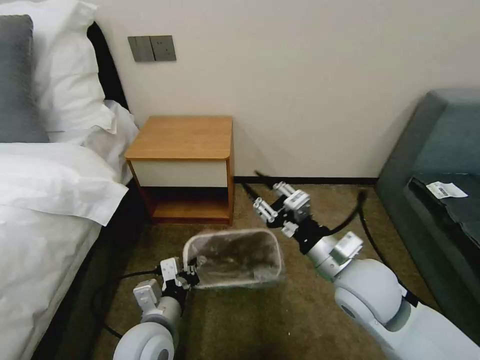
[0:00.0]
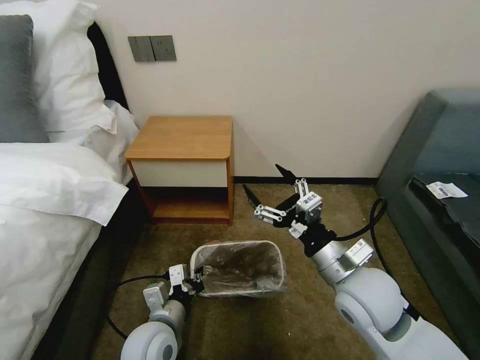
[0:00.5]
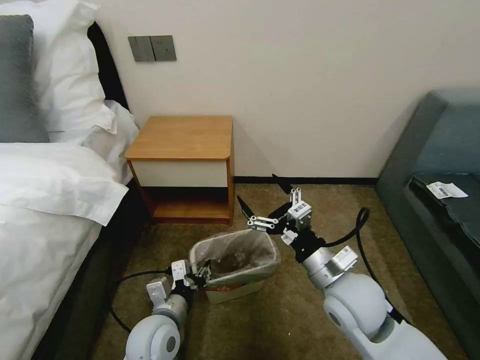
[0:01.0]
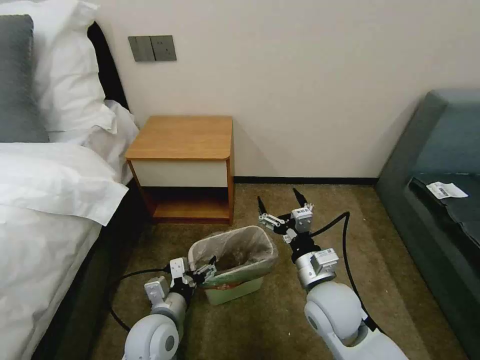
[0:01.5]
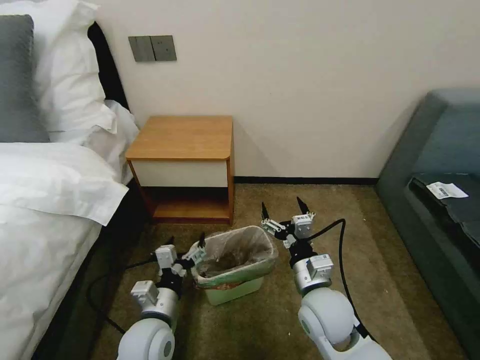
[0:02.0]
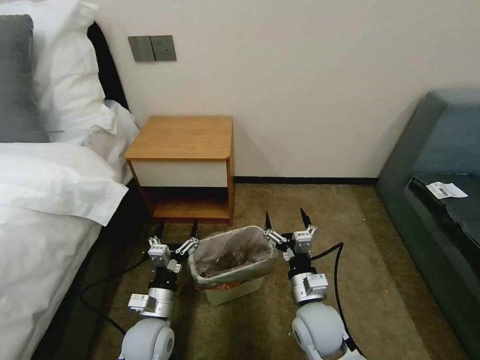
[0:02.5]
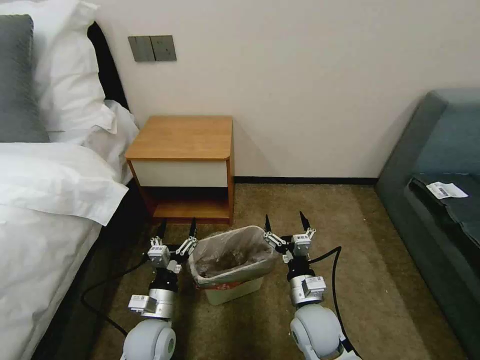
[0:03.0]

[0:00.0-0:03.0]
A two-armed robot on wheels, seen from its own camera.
Task of the whole recording: Pick up the garbage bag from the table and place it over the trash can.
0:00.0 to 0:01.5: The left gripper heads downward, covering about 5 cm, and opens its fingers, while the right gripper shifts some 10 cm downward, and opens up.
0:01.5 to 0:03.0: The right gripper is displaced downward by roughly 10 cm.

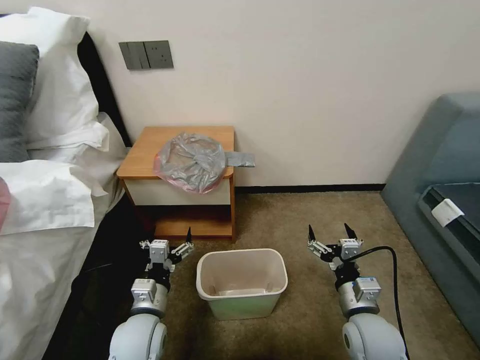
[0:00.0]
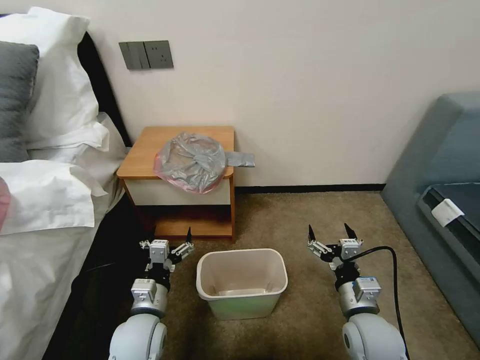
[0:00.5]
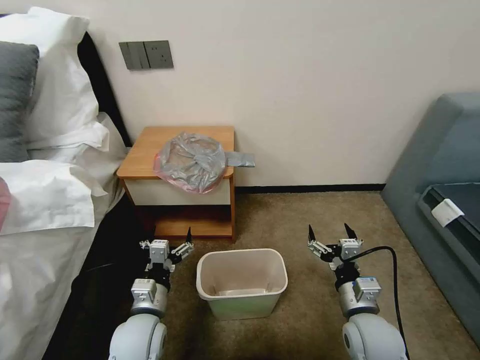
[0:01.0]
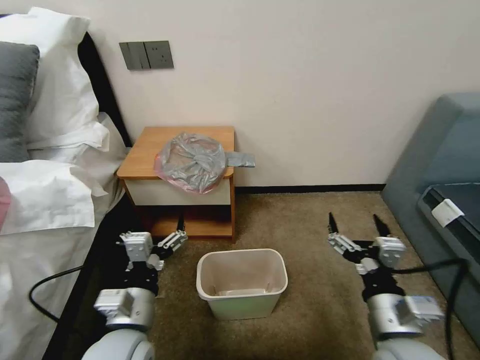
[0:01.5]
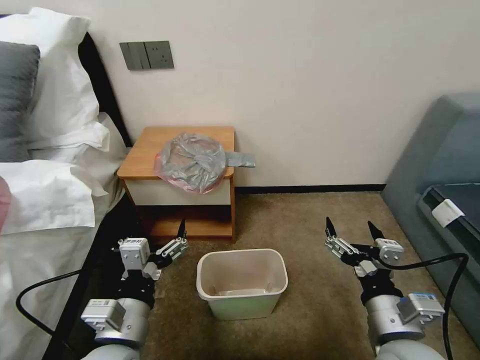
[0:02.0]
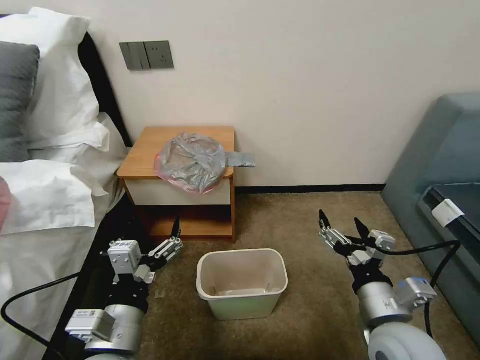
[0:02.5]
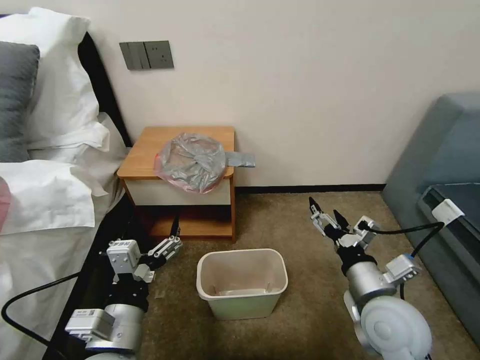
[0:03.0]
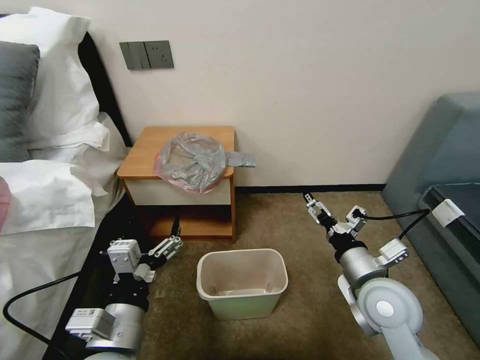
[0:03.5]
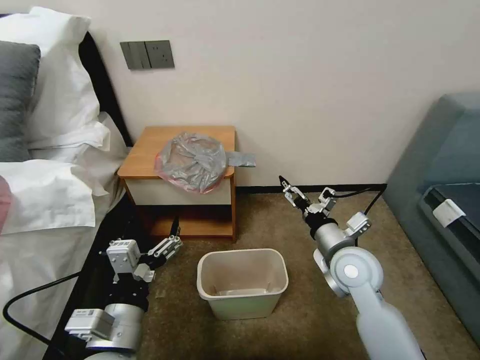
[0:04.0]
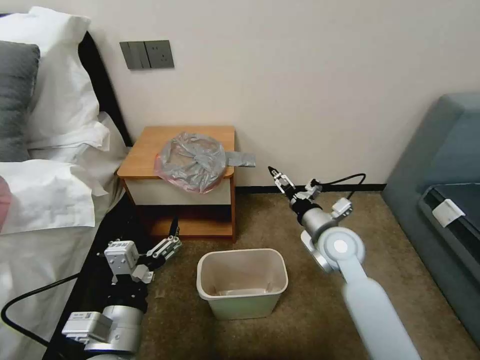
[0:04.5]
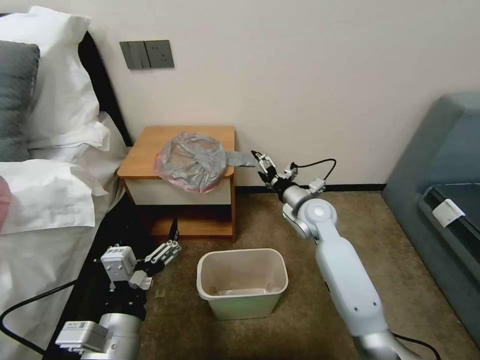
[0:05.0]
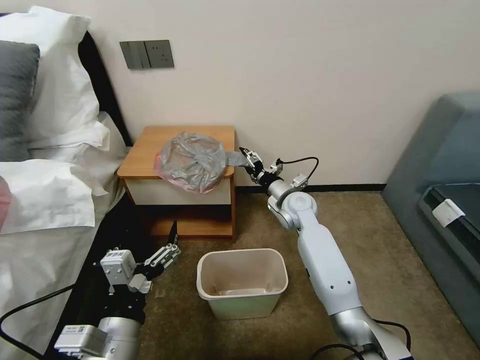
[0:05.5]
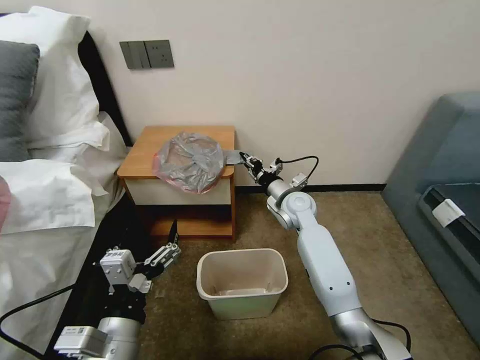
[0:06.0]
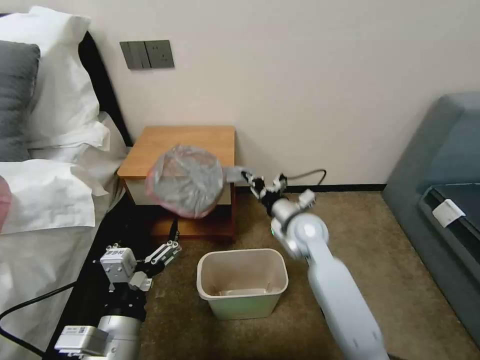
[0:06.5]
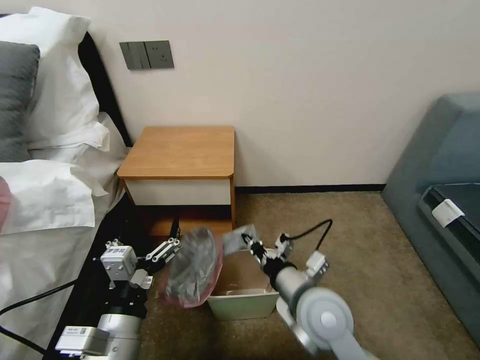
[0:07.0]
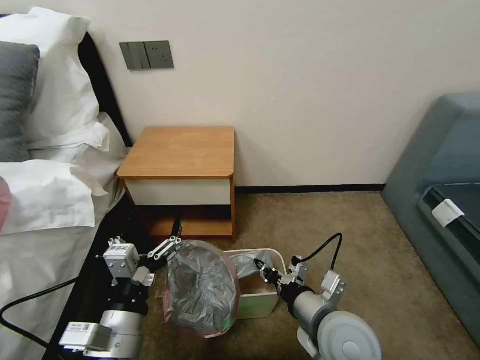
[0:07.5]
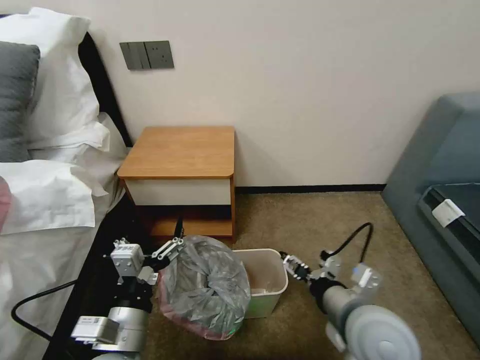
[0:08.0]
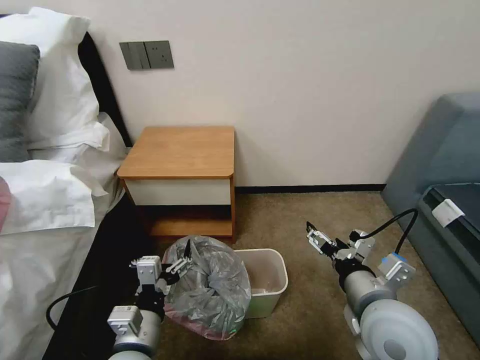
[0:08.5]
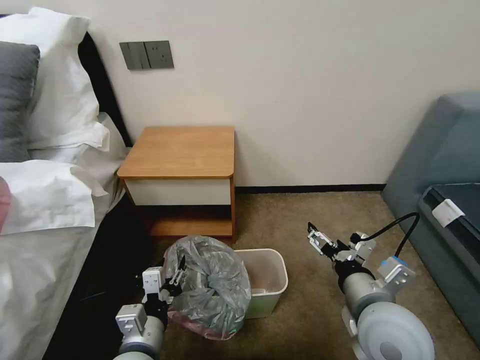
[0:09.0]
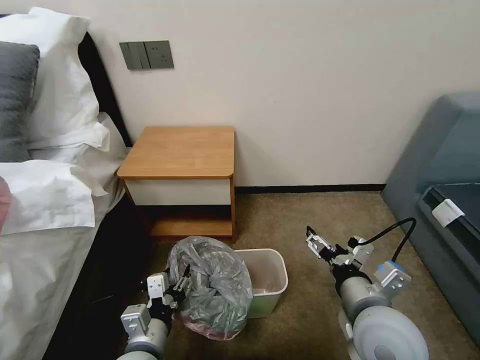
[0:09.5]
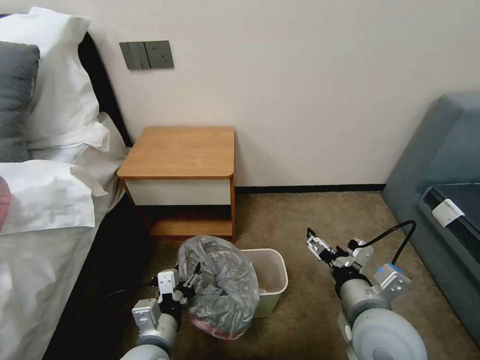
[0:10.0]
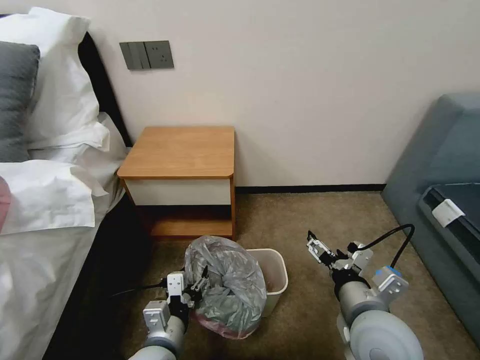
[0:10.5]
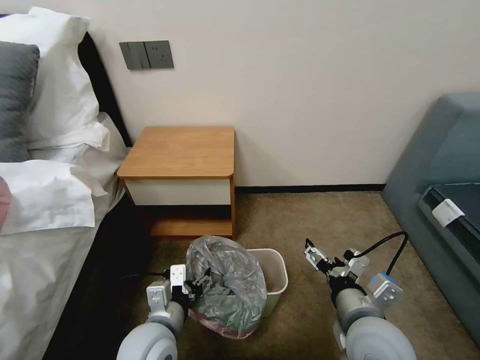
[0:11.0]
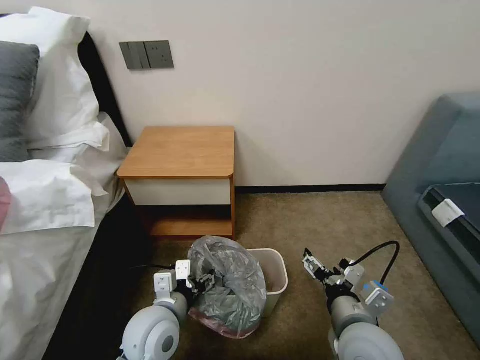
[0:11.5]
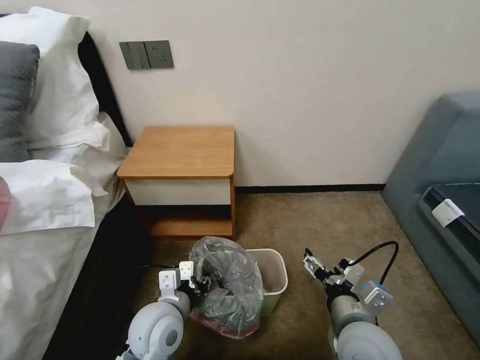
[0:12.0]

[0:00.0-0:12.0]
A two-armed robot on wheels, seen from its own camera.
Task of the whole recording: Pick up the garbage bag from the table and place it over the trash can.
0:02.0 to 0:04.0: The right gripper shifts approximately 15 cm forward.
0:04.0 to 0:06.0: The right gripper heads forward and to the left, covering approximately 20 cm, and closes its fingers.
0:06.0 to 0:08.0: The right gripper shifts some 30 cm backward, and opens up.
0:08.0 to 0:10.0: The left gripper goes approximately 10 cm downward.
0:10.0 to 0:12.0: The left gripper goes roughly 5 cm forward. The right gripper travels downward by about 5 cm.

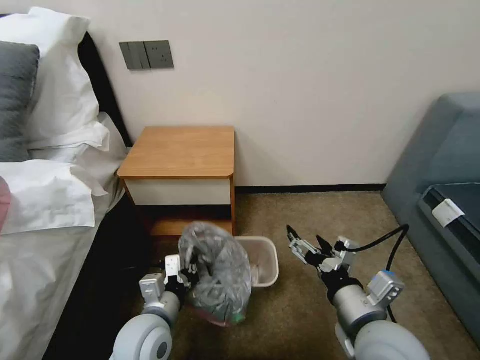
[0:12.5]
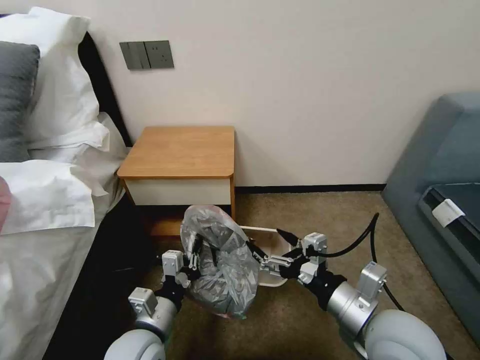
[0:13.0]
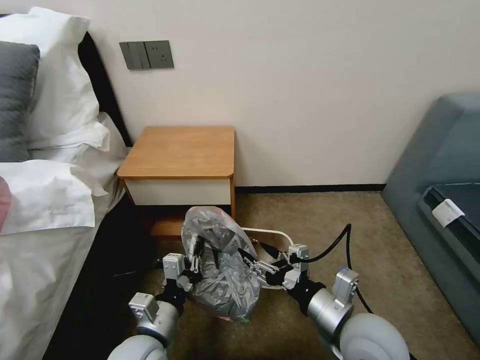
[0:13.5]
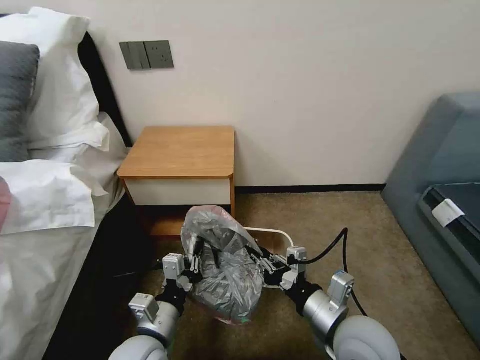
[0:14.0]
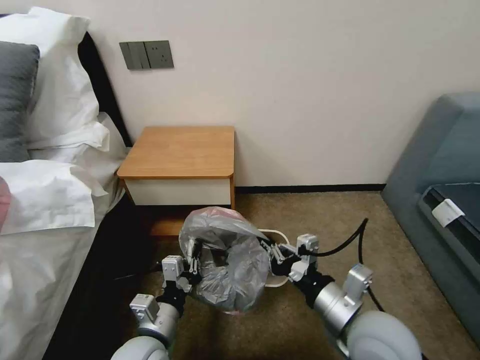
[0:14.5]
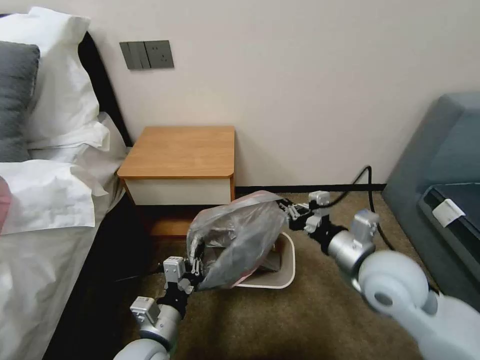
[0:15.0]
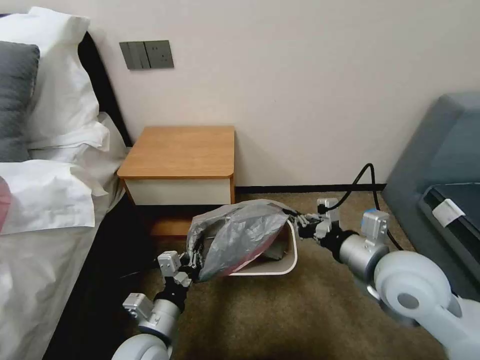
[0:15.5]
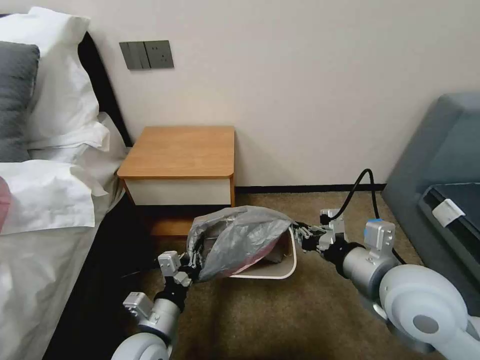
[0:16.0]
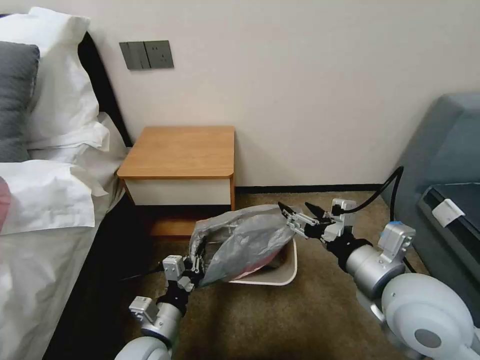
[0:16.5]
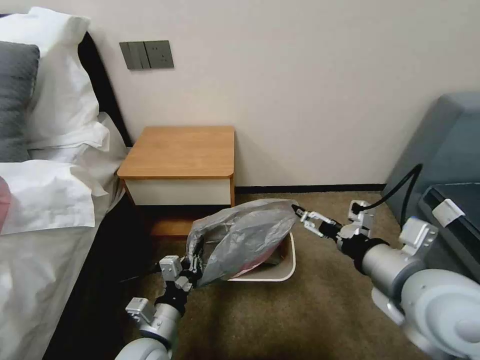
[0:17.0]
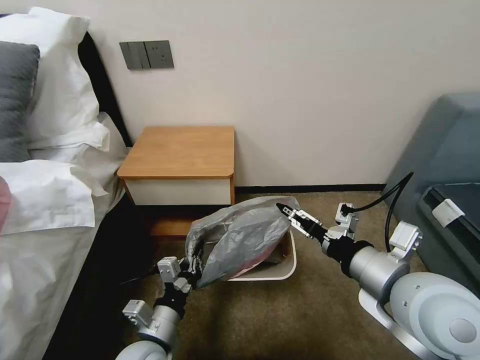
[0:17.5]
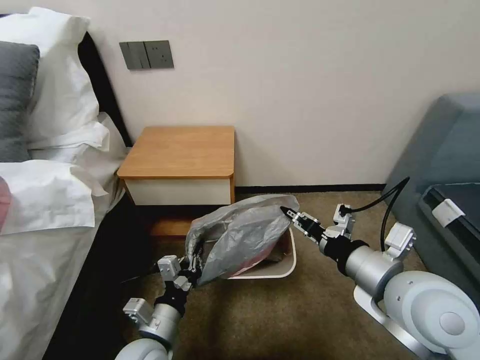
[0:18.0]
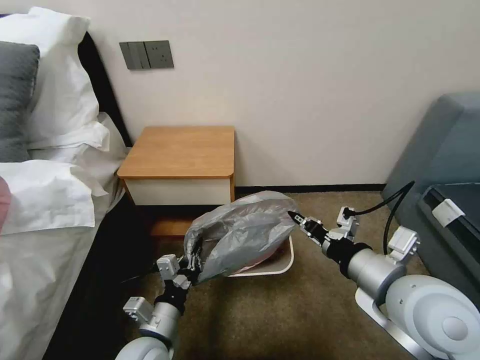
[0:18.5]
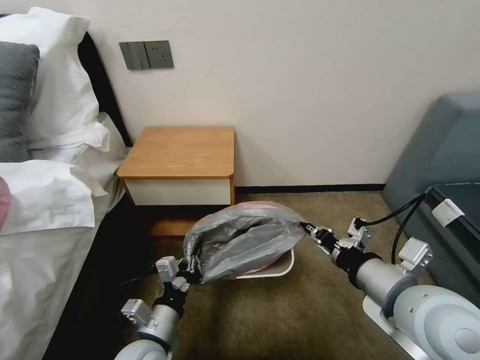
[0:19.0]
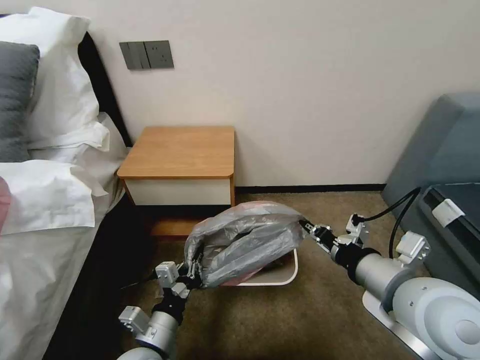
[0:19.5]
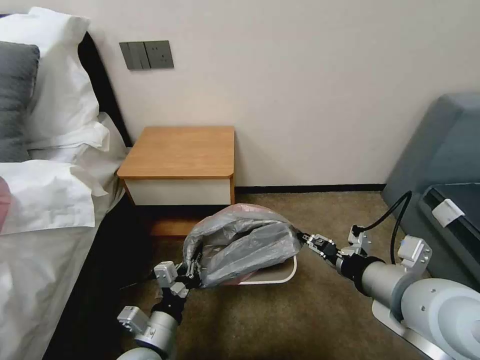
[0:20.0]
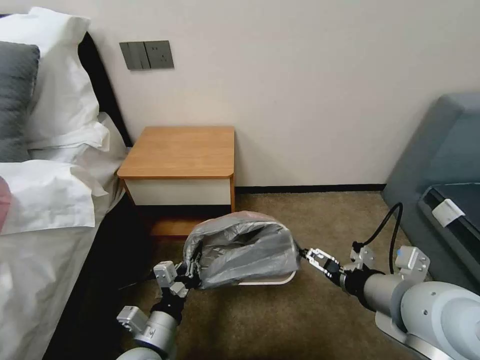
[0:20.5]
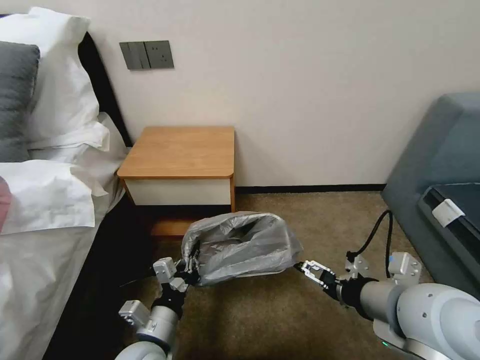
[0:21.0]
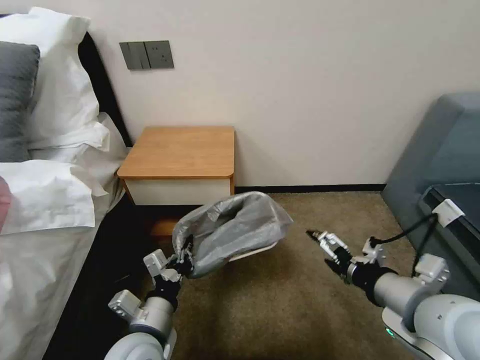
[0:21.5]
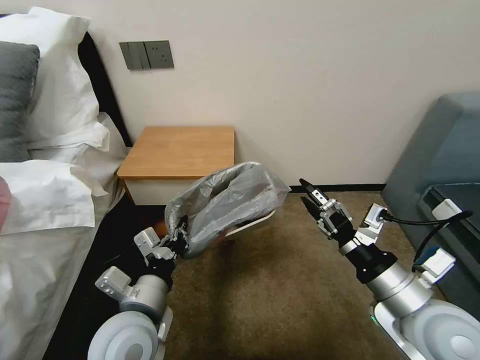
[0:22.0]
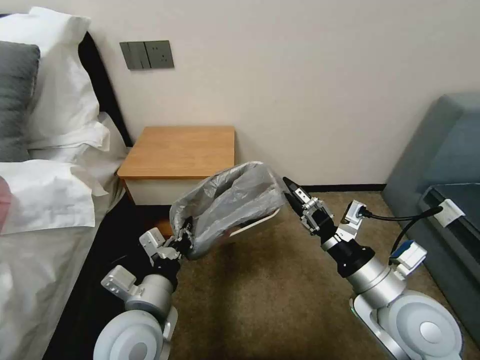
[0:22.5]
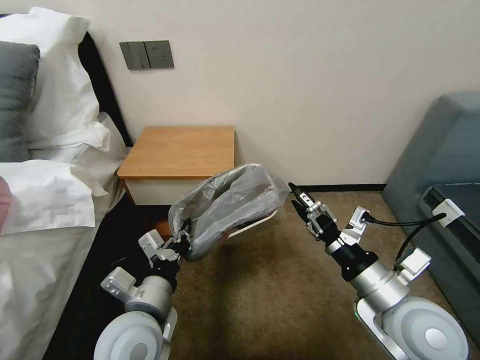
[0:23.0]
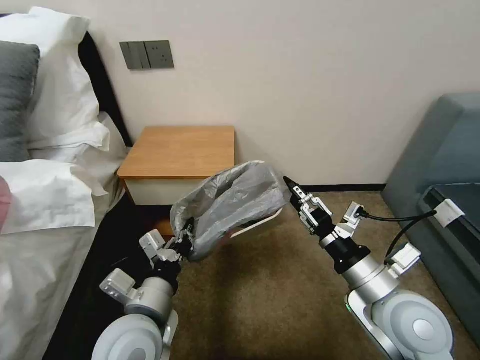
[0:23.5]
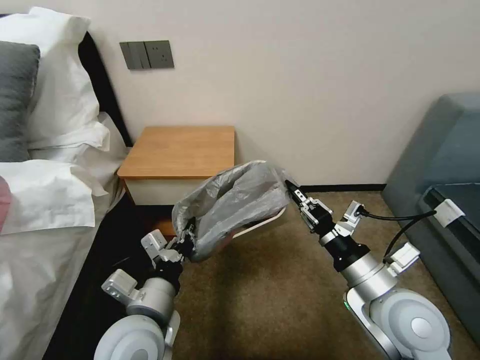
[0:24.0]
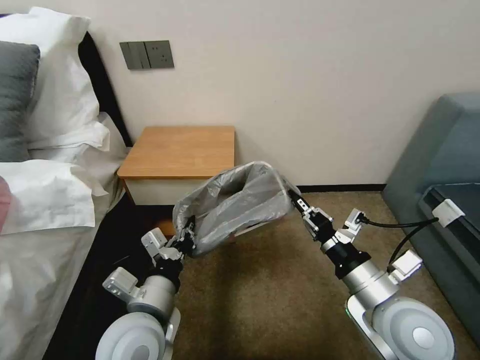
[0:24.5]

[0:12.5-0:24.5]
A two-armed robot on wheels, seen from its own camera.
Task of the whole recording: Pick up the garbage bag from the table and place it over the trash can.
0:12.5 to 0:14.5: The right gripper closes up.
0:14.5 to 0:16.5: The right gripper goes about 10 cm upward, goes forward and returns, approximately 10 cm each way, and opens up.
0:16.5 to 0:18.5: The right gripper closes its fingers.
0:18.5 to 0:20.5: The right gripper opens its fingers.
0:20.5 to 0:22.5: The left gripper goes about 10 cm upward. Meanwhile the right gripper heads downward, covering approximately 5 cm.
0:22.5 to 0:24.5: The right gripper closes up.
